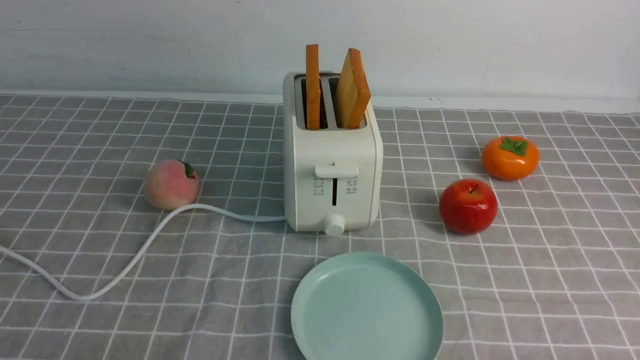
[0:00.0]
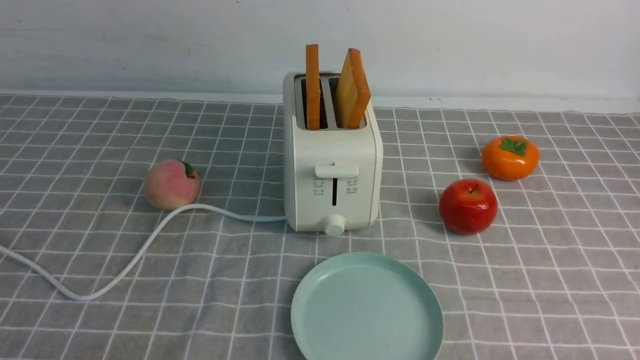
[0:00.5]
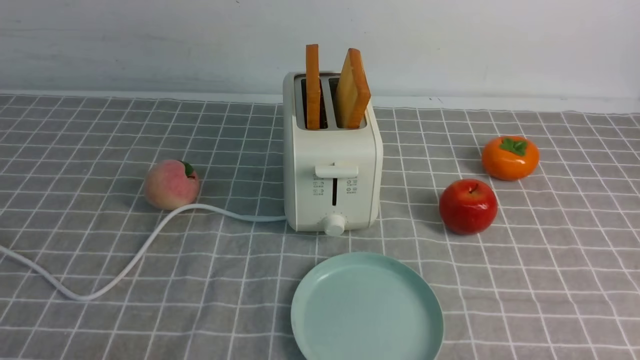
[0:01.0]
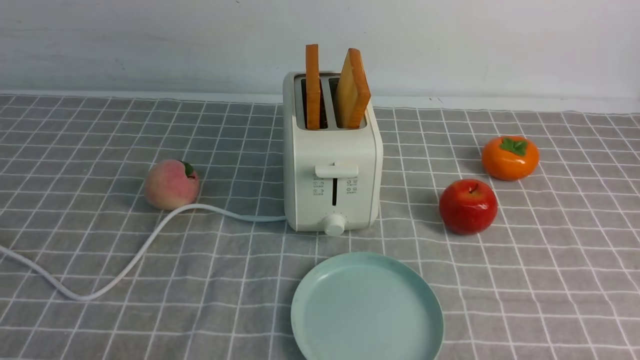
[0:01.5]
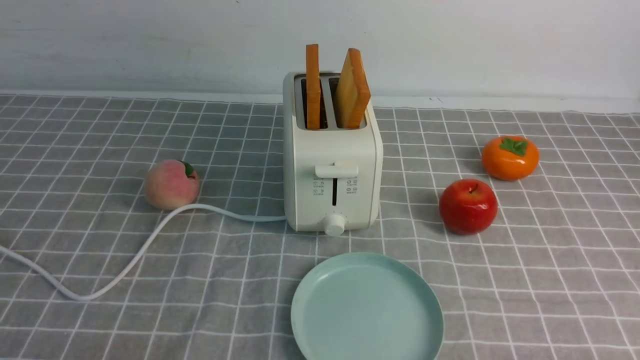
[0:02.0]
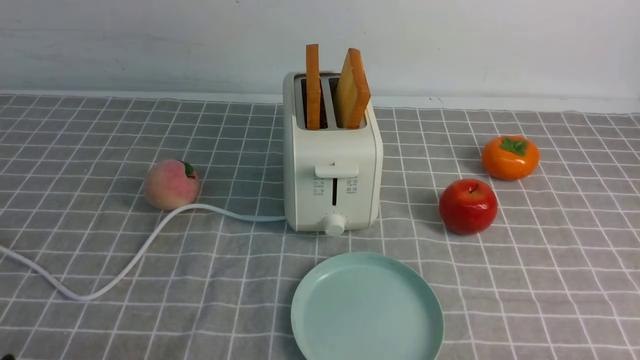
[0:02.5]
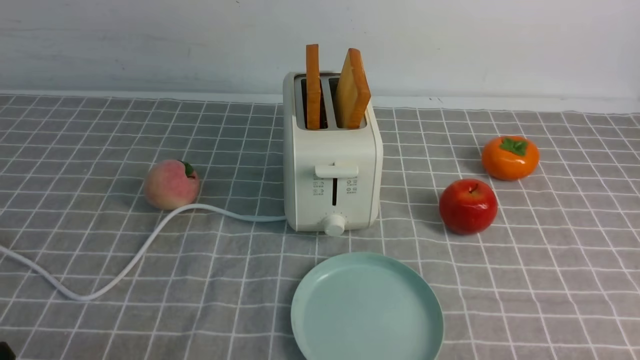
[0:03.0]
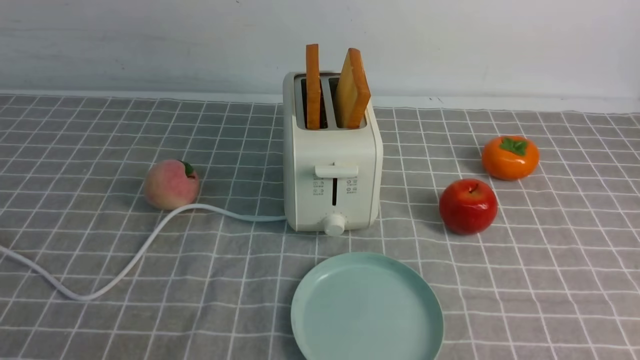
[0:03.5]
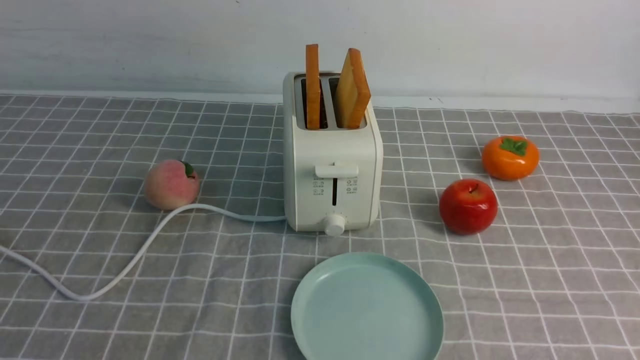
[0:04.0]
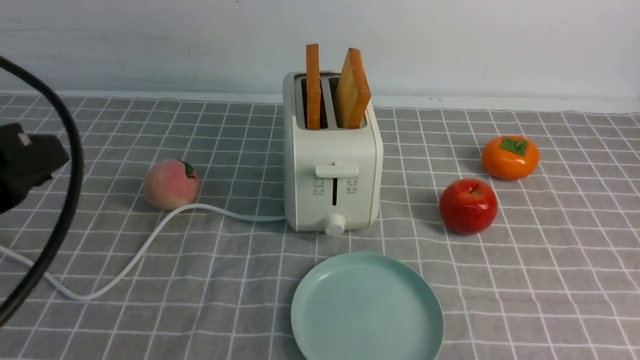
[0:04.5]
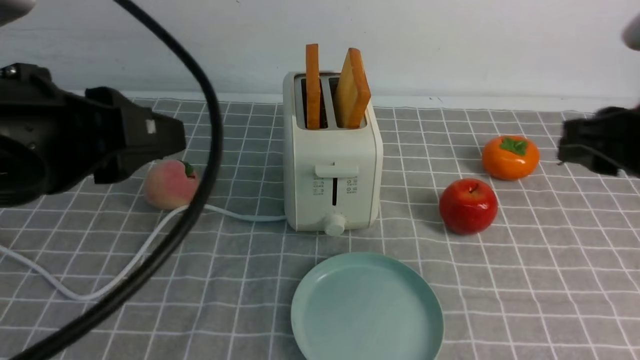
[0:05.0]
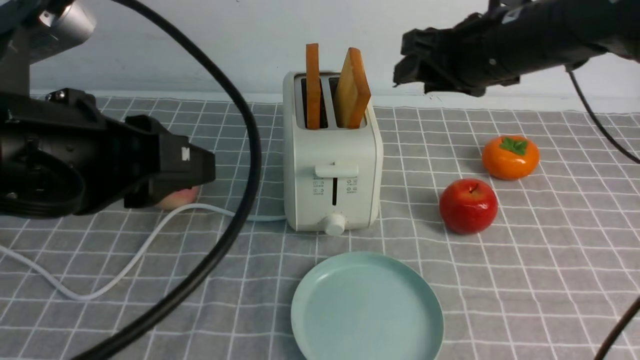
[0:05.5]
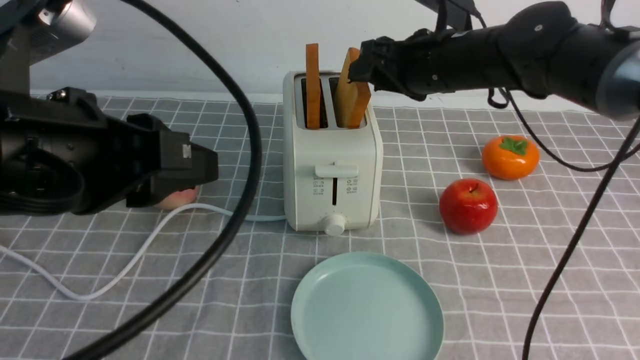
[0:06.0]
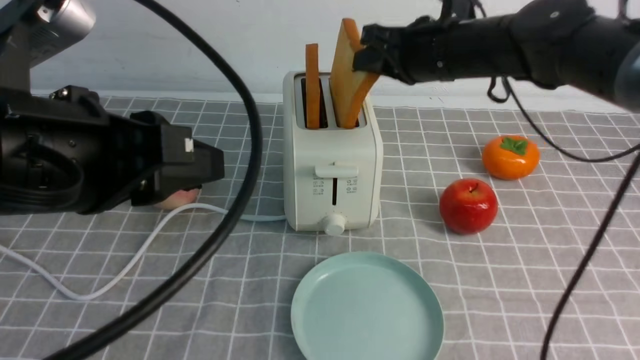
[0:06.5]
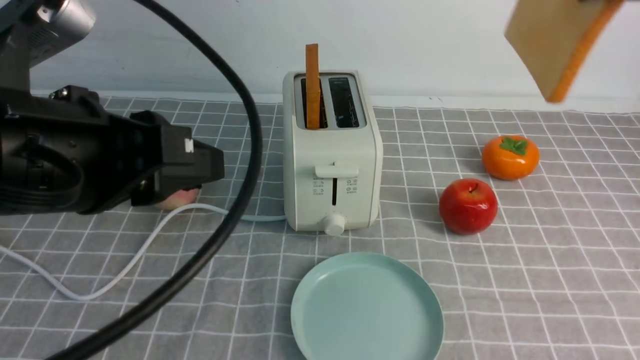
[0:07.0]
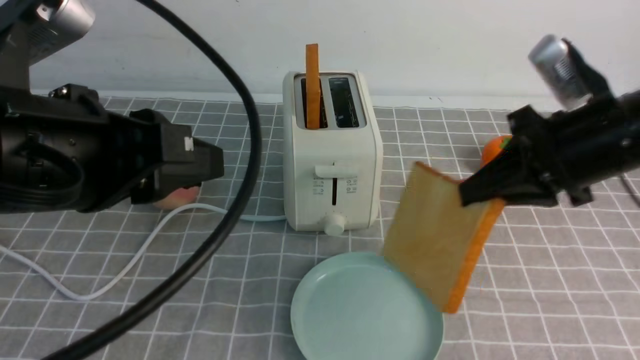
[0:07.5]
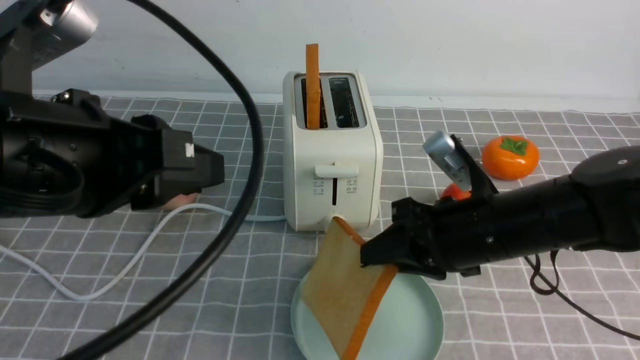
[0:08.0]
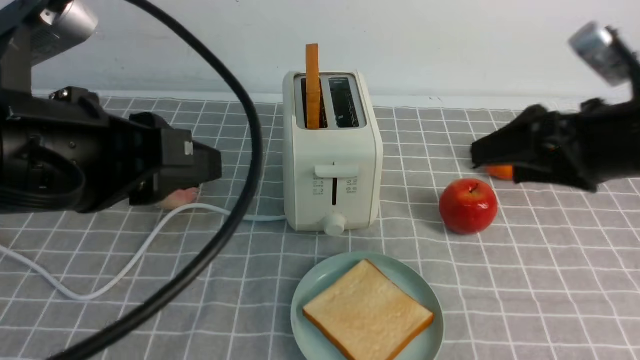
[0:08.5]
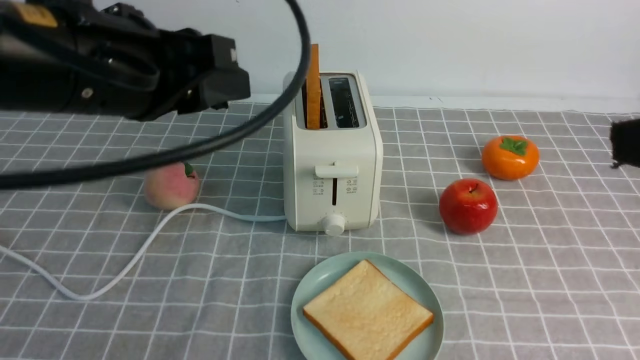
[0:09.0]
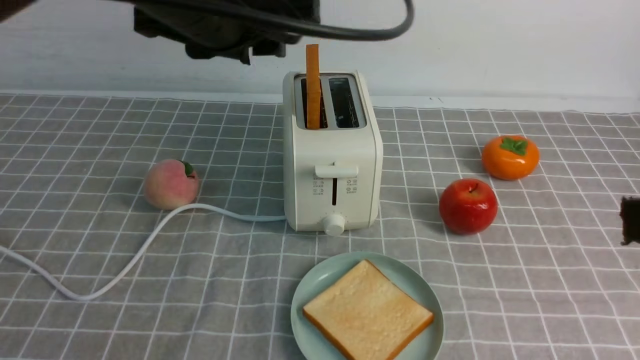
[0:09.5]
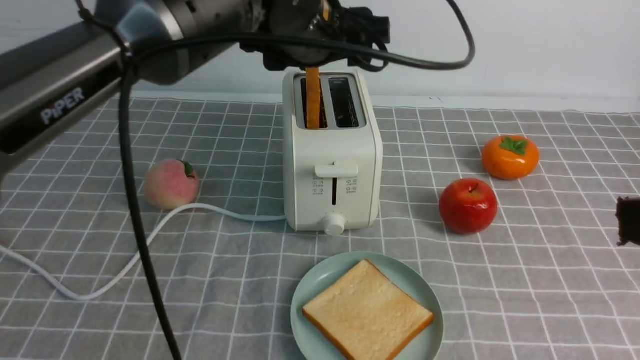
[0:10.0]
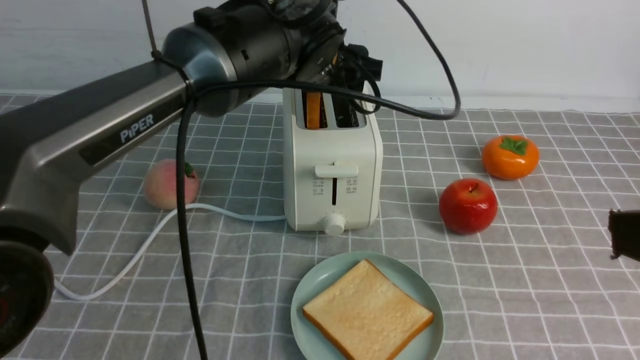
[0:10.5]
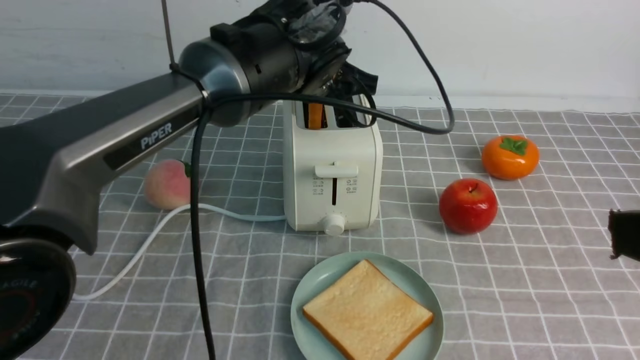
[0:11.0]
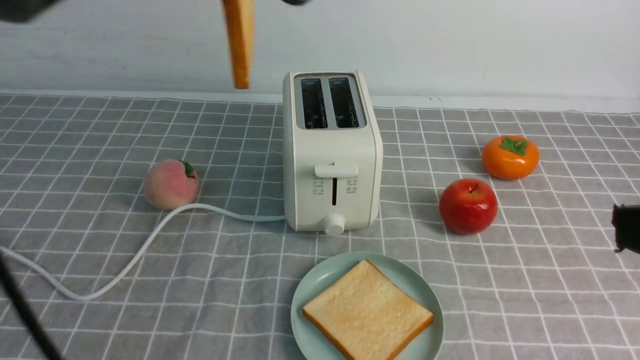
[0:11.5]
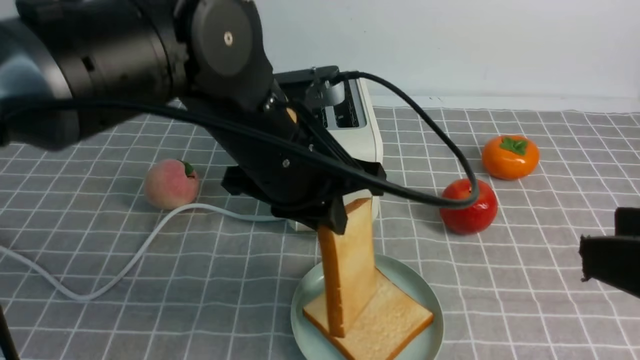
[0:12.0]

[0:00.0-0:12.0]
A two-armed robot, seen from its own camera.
Task of the whole recording: take toasted bread from bread machine on grey coffee table place on plate.
Step, 0:00.0 to 0:06.5: use the right arm to take out a slice of bread.
Step, 0:07.0 to 0:08.0: use the right arm to put a slice of bread into the plate.
Step, 0:08.5 to 0:11.0: use the left arm to take out a slice of bread.
0:00.0 to 0:02.0: Both grippers stay about where they are.
0:04.0 to 0:06.0: The left gripper goes some 10 cm to the right and forward; the right gripper shifts roughly 40 cm forward and to the left.
0:06.0 to 0:08.0: The right gripper is displaced backward and downward by approximately 15 cm.
0:08.0 to 0:10.0: The left gripper moves forward and to the right, approximately 25 cm, and opens up; the right gripper travels backward, upward and to the right by approximately 25 cm, and opens its fingers.
0:10.0 to 0:12.0: The left gripper travels backward by some 10 cm, and closes.

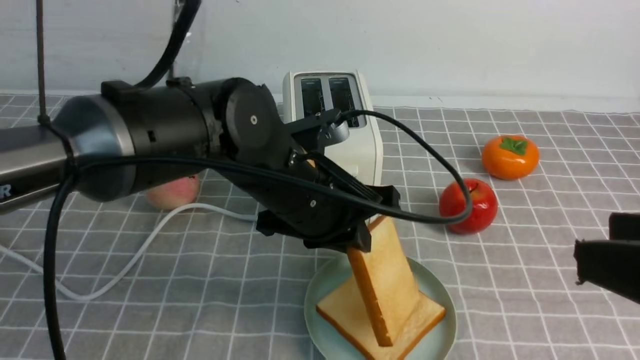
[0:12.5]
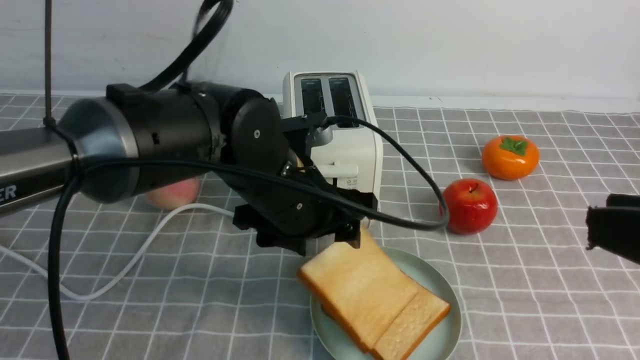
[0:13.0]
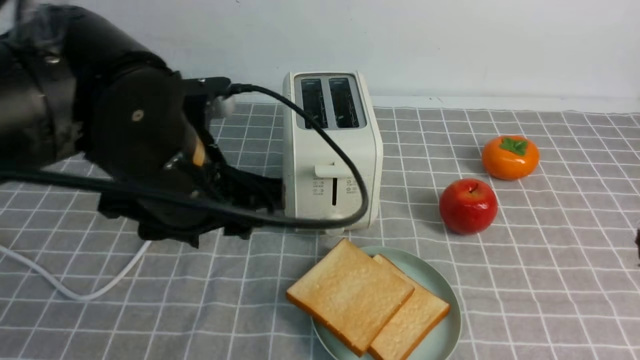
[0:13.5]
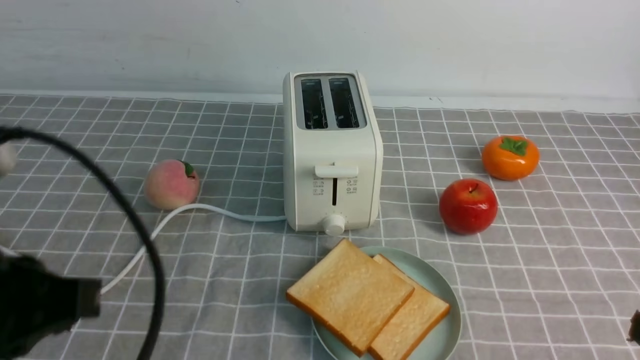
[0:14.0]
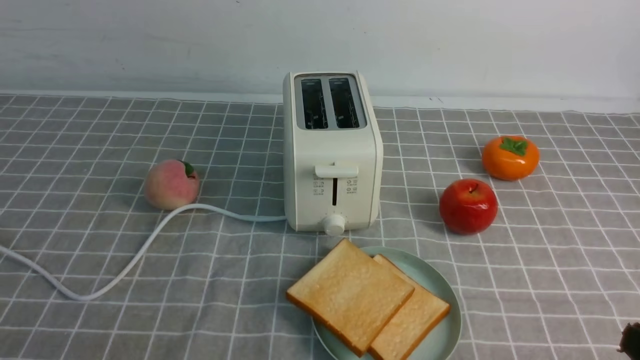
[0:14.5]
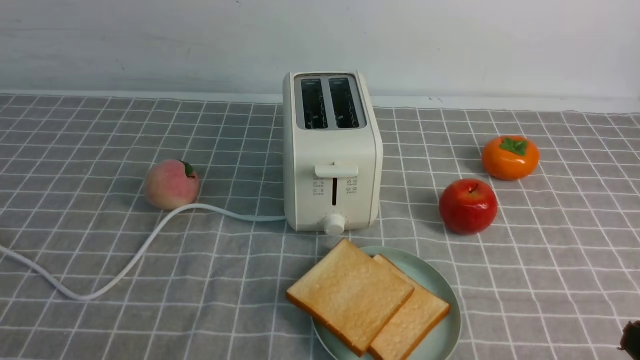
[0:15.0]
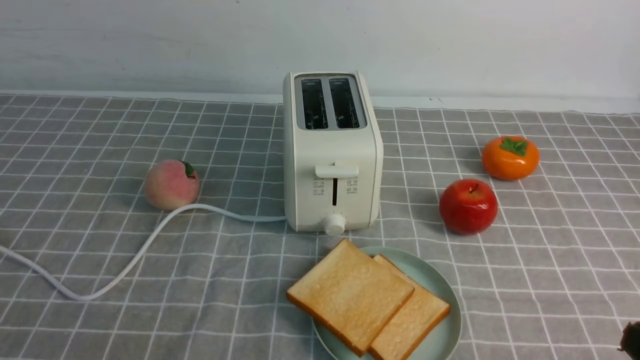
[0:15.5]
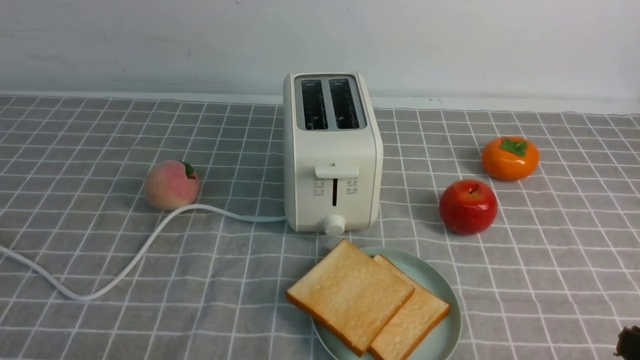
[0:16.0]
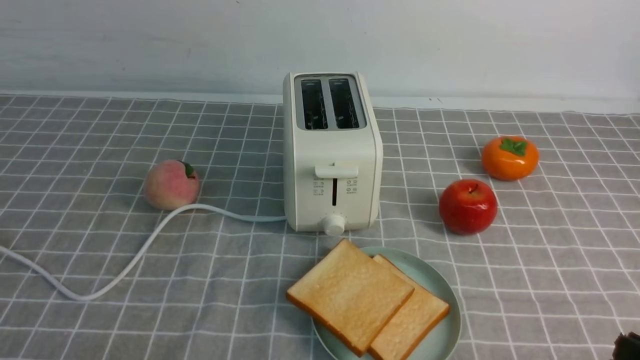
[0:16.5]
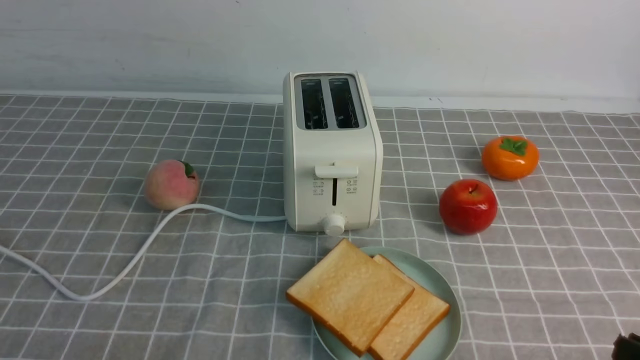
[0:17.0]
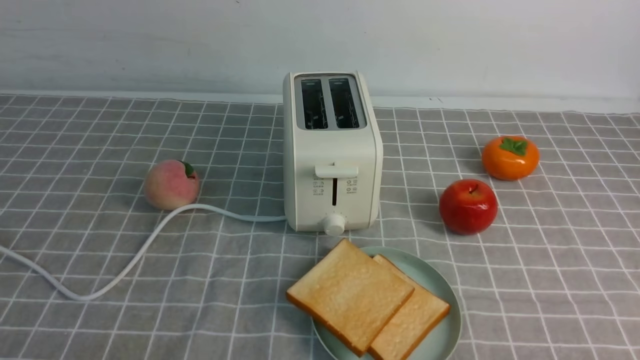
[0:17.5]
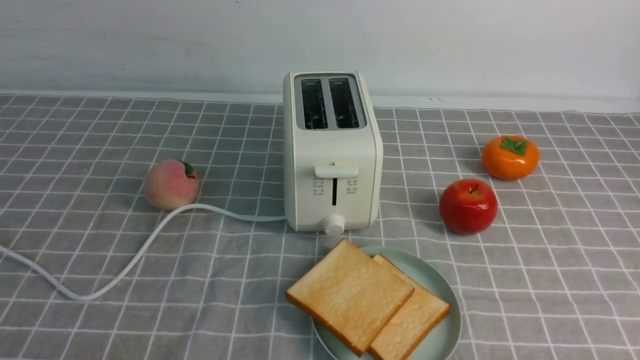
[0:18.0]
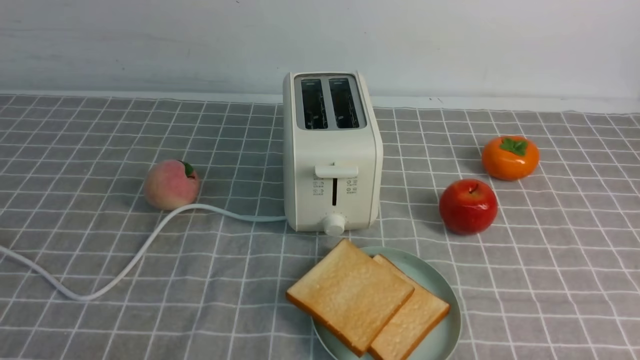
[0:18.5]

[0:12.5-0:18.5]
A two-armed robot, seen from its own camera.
Task of the whole recording: take toasted bread from bread machine on grey coffee table place on plate.
0:12.5 to 0:14.5: The right gripper is displaced downward by roughly 15 cm, and closes up, while the left gripper shifts about 35 cm backward and to the left, and opens and closes again.
